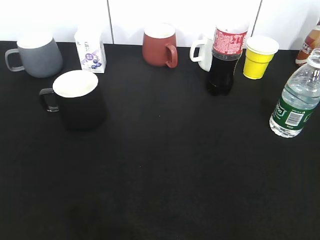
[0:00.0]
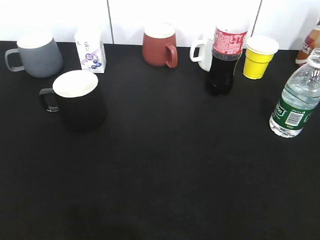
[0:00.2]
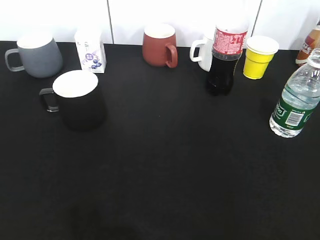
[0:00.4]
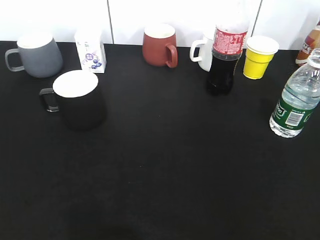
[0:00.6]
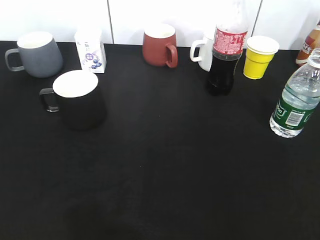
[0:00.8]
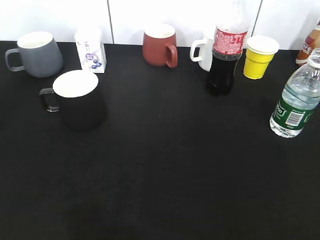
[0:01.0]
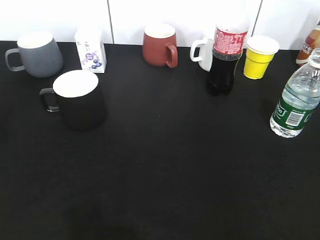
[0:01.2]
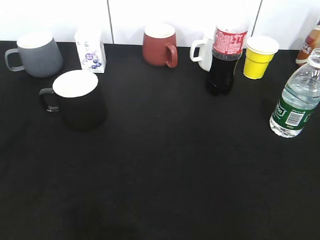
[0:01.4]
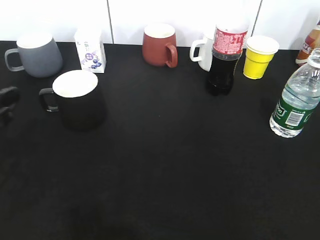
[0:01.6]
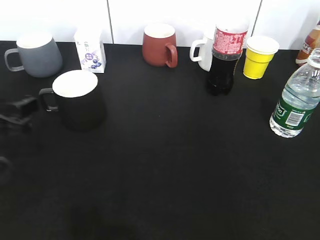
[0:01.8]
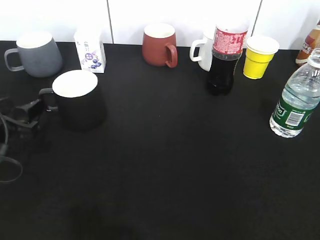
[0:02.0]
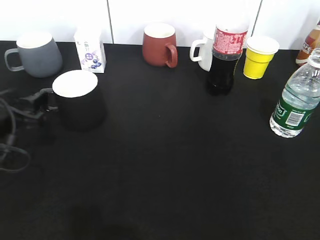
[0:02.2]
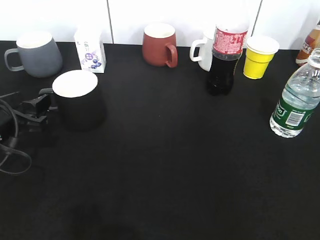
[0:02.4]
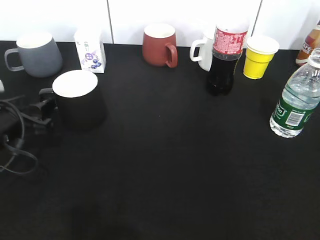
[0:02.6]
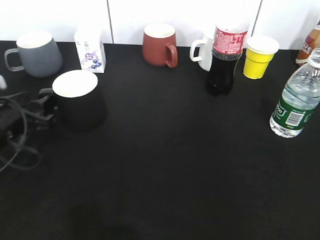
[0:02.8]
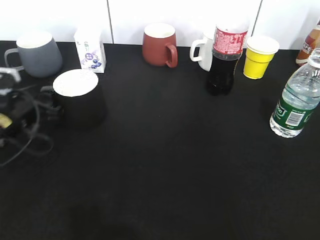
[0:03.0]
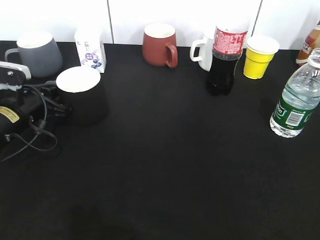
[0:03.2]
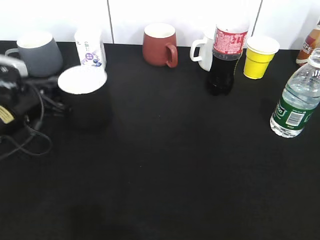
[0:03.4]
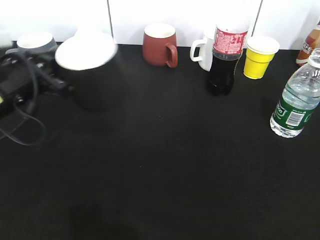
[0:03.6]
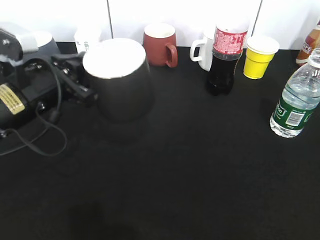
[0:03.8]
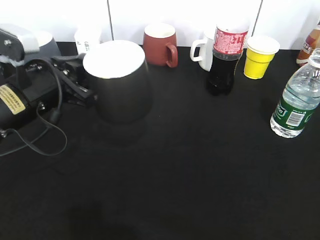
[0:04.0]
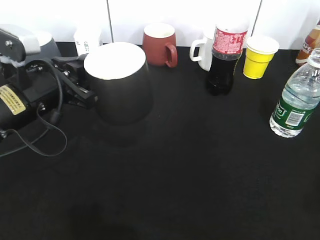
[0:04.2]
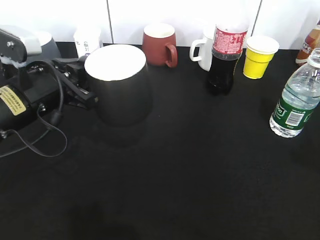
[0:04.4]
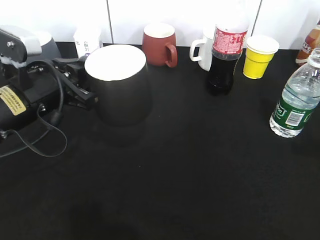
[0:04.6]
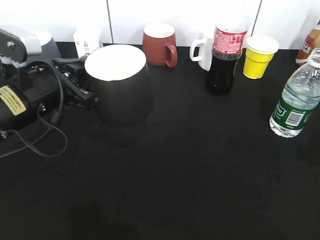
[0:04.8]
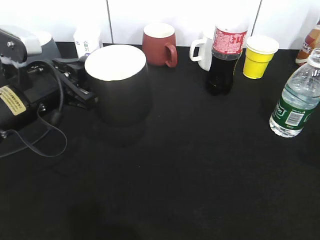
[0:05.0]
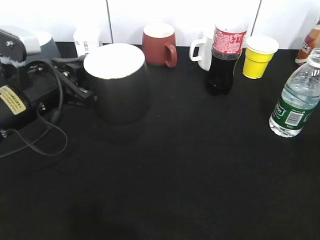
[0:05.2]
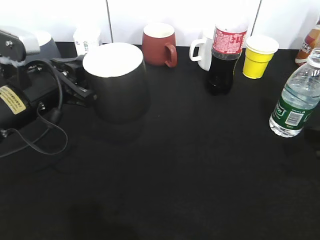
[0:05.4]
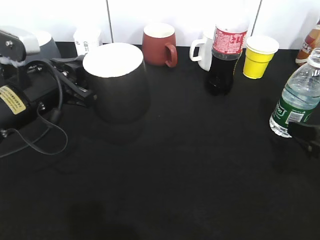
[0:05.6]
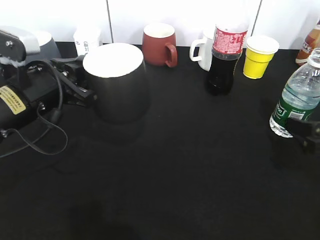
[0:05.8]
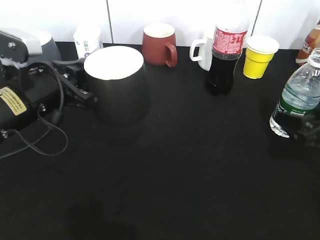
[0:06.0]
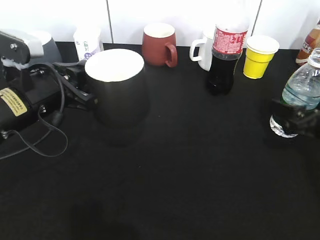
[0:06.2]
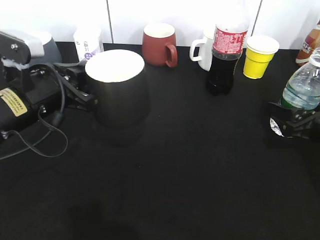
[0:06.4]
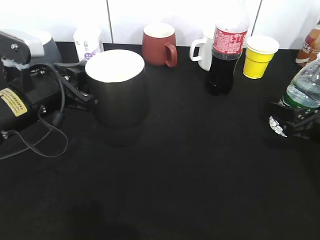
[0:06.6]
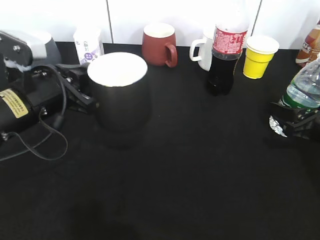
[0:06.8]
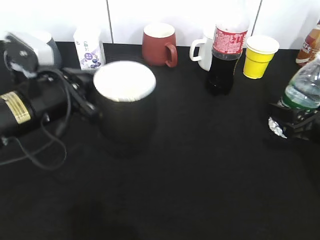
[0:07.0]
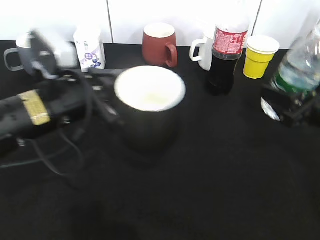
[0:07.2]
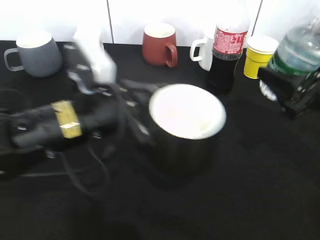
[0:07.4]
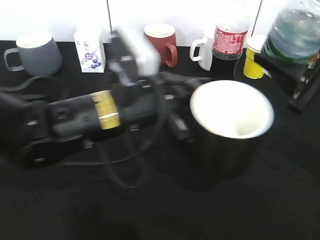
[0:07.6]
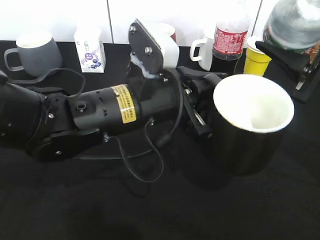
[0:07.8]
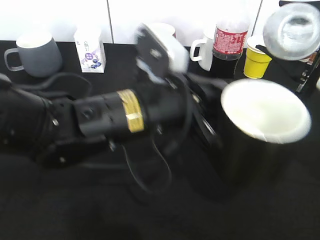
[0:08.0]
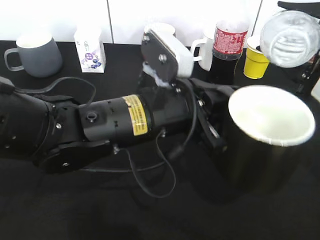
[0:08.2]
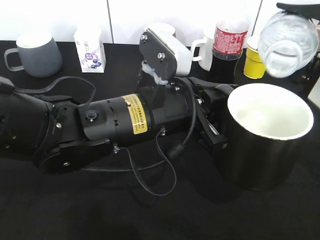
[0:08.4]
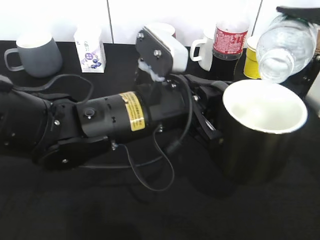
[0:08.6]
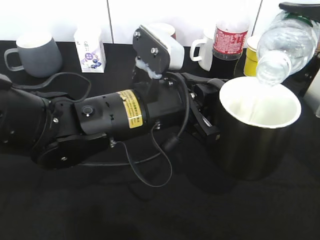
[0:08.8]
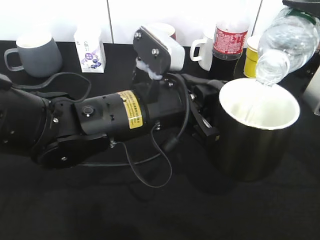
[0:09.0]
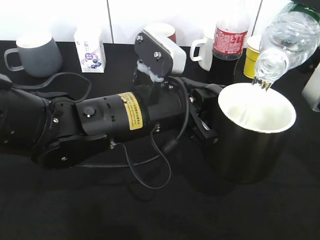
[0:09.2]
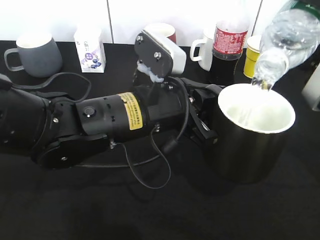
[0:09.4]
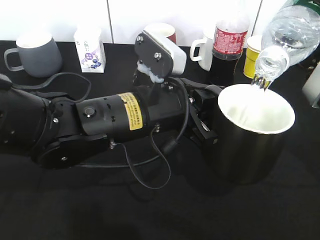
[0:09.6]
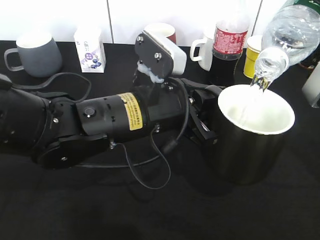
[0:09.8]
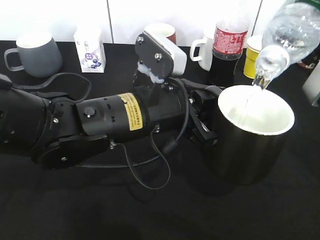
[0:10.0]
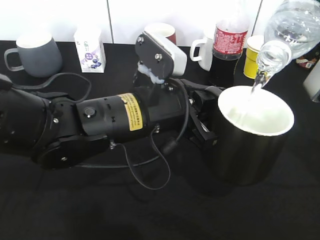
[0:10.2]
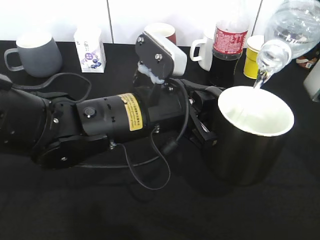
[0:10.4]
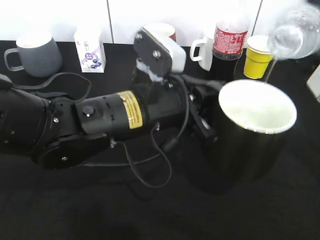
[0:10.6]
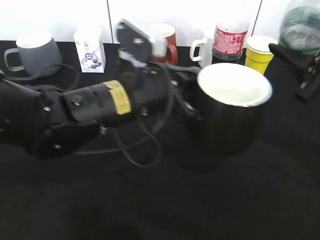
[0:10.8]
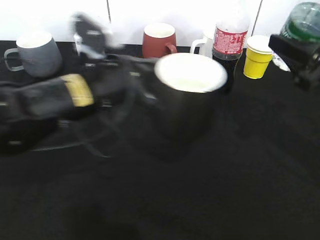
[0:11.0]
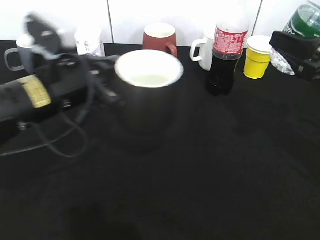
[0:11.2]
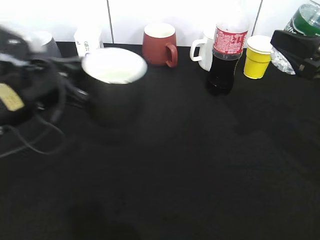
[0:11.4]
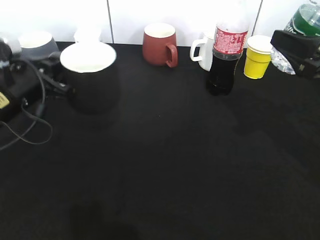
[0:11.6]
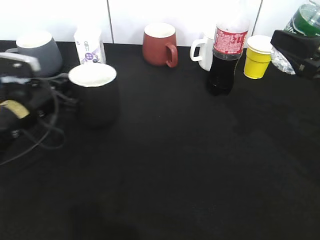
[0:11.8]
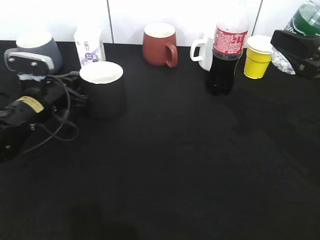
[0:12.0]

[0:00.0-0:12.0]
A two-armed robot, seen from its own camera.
Step, 0:00.6 to 0:03.0: Grasp the black cup with left gripper.
Step, 0:03.4 to 0:04.0: Lift the black cup with left gripper.
Step, 0:04.2 to 0:06.8: Grasp the bottle with water with right gripper.
Step, 0:07.0 to 0:10.8: Pour the water from bottle to cup with right gripper.
0:01.6 to 0:03.0: The left gripper moves forward and downward, roughly 10 cm.
0:03.0 to 0:04.4: The right gripper shifts about 10 cm forward. Meanwhile the left gripper travels upward and to the right by about 10 cm, and closes.
0:04.4 to 0:06.0: The right gripper goes roughly 25 cm downward and forward, and opens.
0:06.0 to 0:07.6: The left gripper goes approximately 15 cm to the right. Meanwhile the right gripper heads upward and to the left, covering about 10 cm, and closes its fingers.
0:09.0 to 0:10.4: The grippers move only a little.
0:10.4 to 0:12.0: The left gripper heads to the left, forward and downward, covering roughly 25 cm.

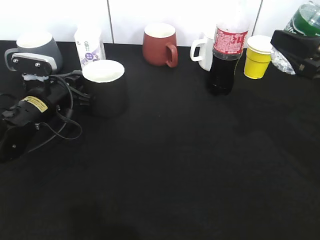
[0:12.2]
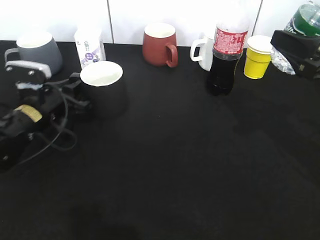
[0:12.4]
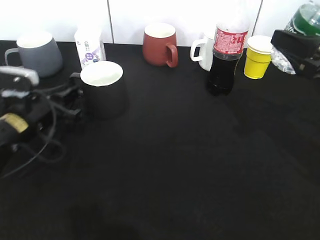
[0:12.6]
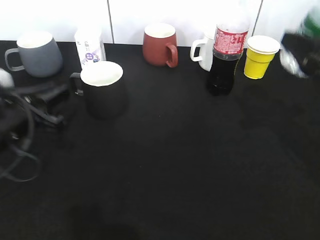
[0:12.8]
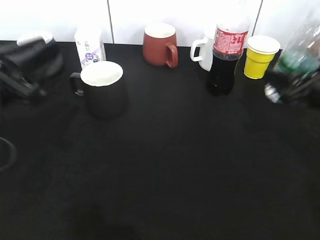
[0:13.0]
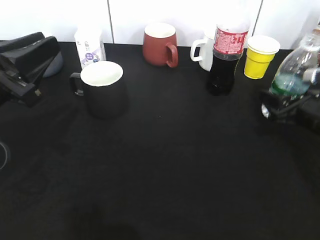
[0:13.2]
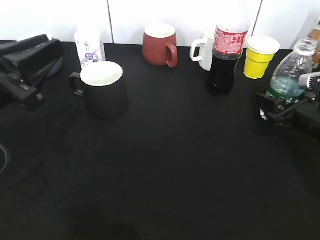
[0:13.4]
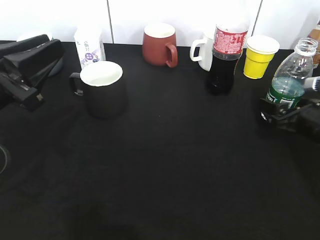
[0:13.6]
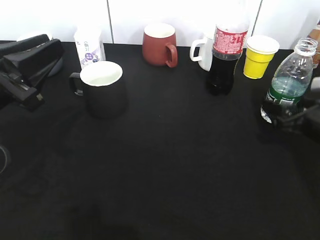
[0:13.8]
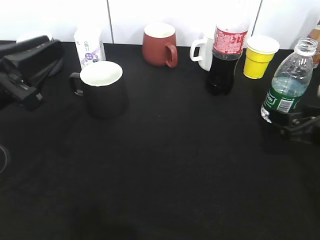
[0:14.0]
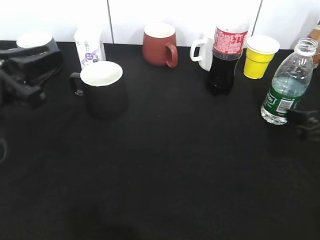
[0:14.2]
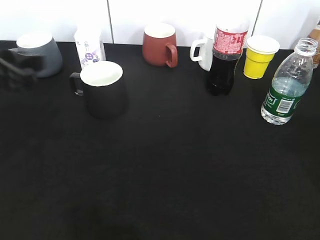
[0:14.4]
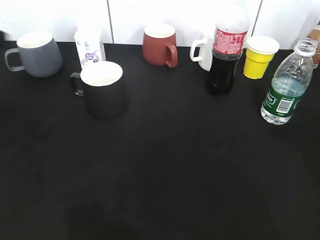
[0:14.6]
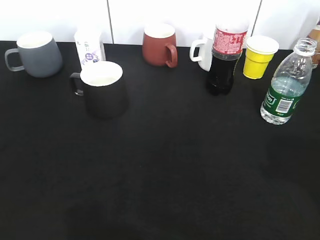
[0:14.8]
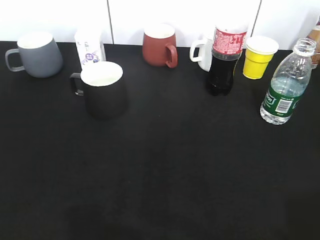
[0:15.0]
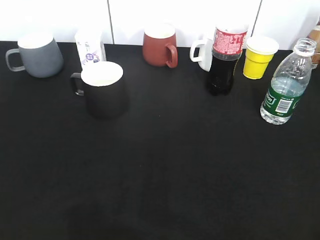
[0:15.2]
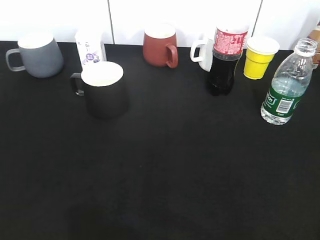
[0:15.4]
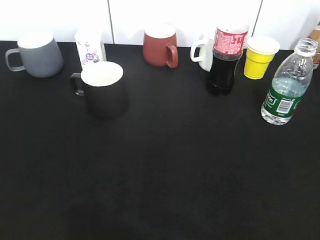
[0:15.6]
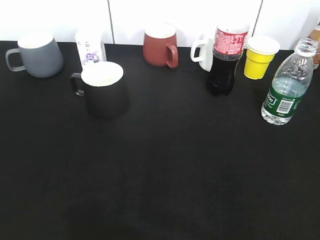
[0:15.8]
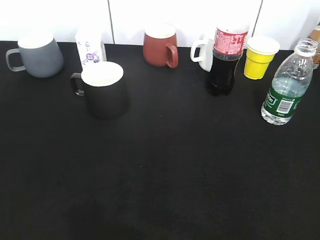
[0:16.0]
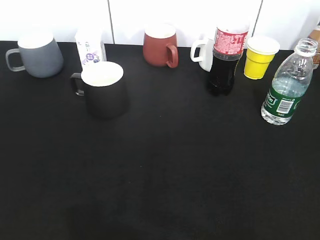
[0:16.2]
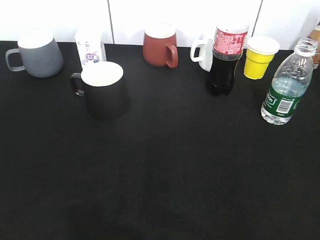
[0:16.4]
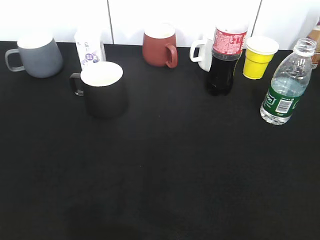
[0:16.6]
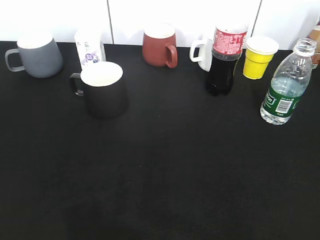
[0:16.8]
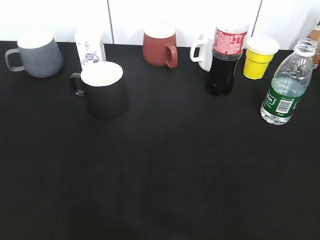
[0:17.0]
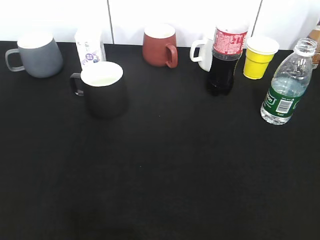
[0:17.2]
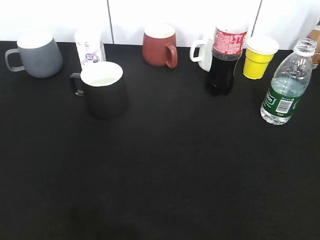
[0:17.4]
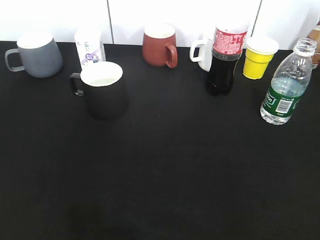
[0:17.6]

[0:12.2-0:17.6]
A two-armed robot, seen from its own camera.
Step, 0:12.8 to 0:13.8: Place the water bottle on the table with right gripper.
0:12.2 to 0:13.6: The left gripper goes roughly 20 cm backward and upward, and opens. The right gripper shifts some 15 cm downward, and opens its fingers.
0:13.6 to 0:15.0: The left gripper goes roughly 25 cm backward, upward and to the left; the right gripper is displaced backward and upward by some 35 cm, and closes.
0:15.0 to 0:16.2: The grippers both shift downward by some 5 cm.
